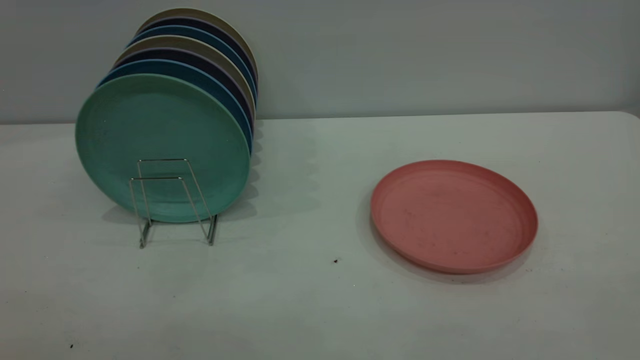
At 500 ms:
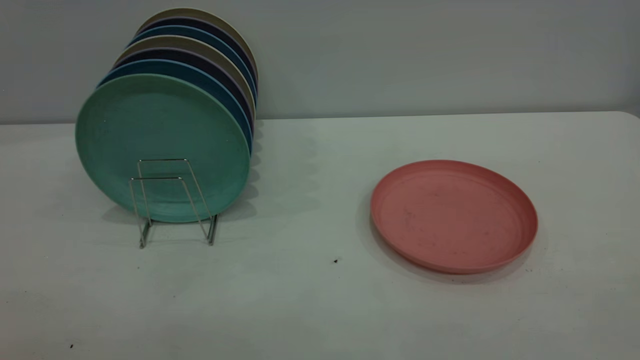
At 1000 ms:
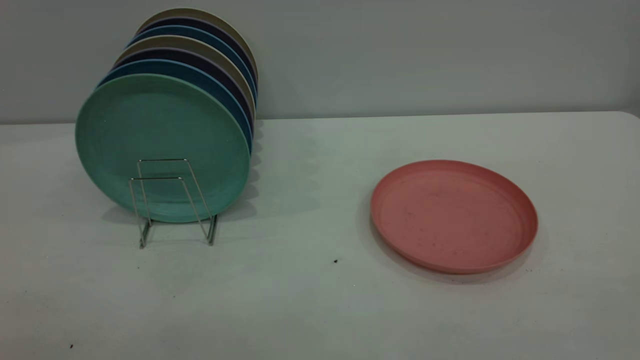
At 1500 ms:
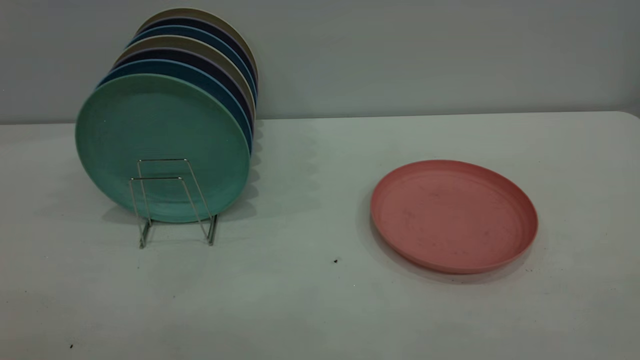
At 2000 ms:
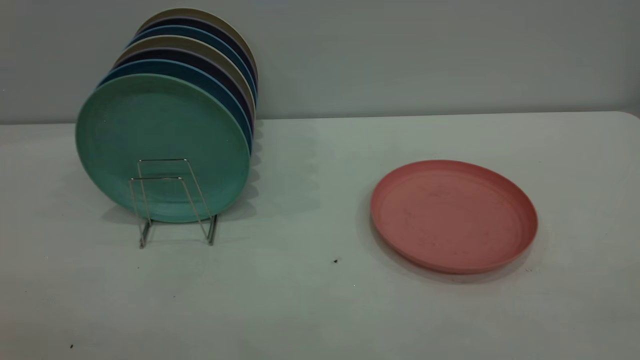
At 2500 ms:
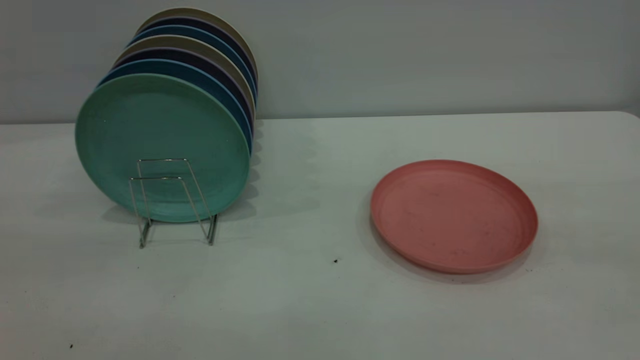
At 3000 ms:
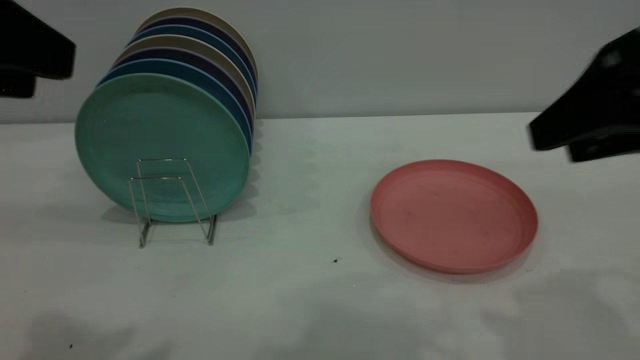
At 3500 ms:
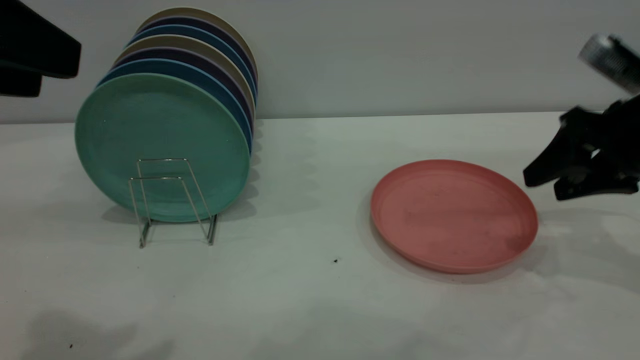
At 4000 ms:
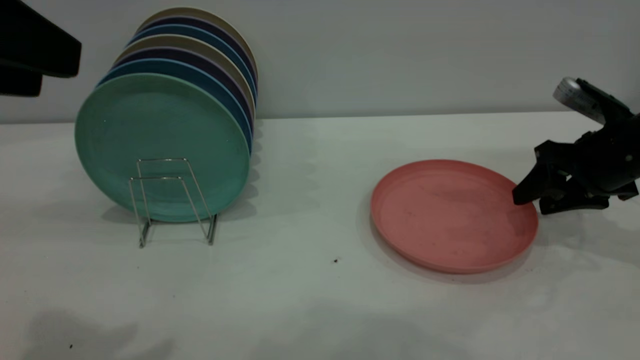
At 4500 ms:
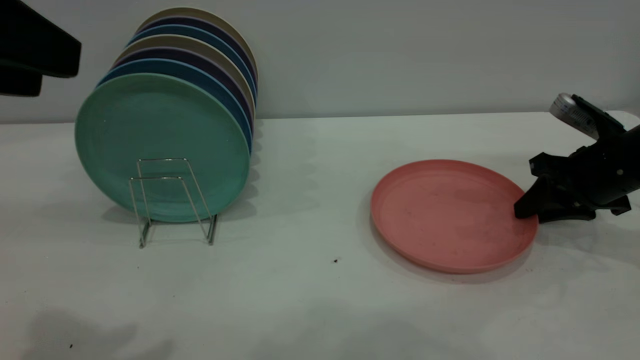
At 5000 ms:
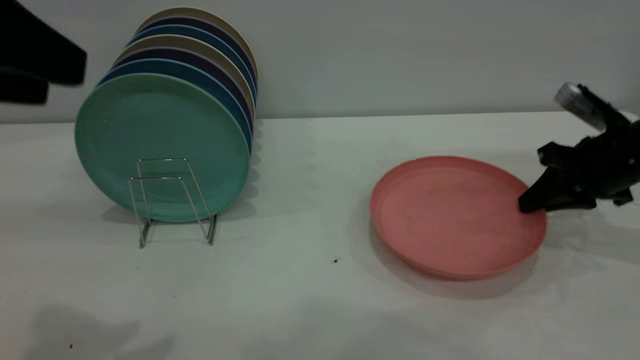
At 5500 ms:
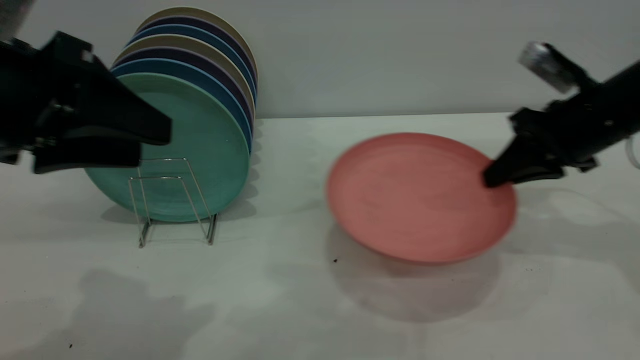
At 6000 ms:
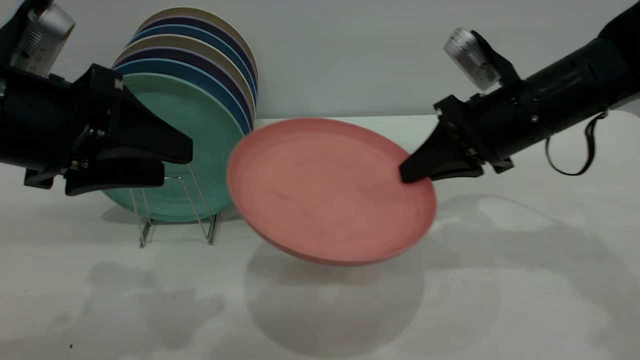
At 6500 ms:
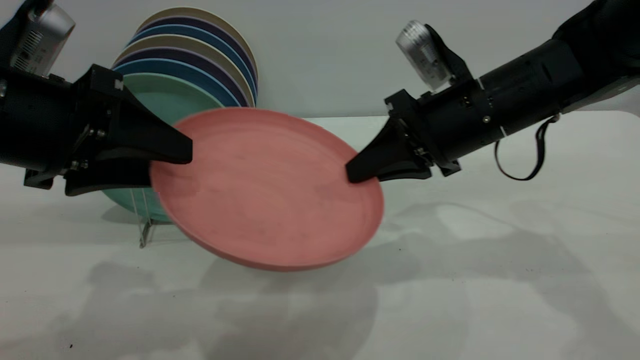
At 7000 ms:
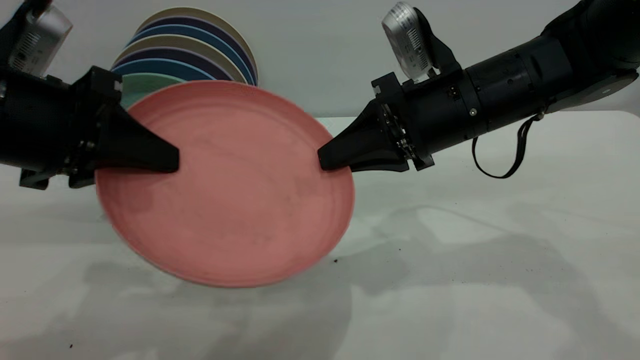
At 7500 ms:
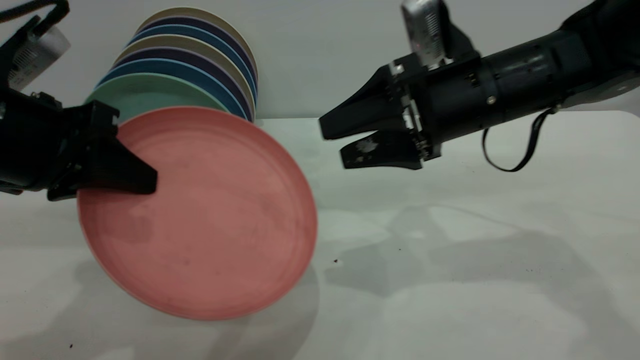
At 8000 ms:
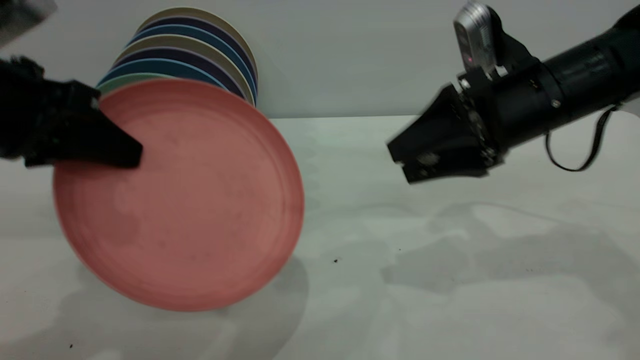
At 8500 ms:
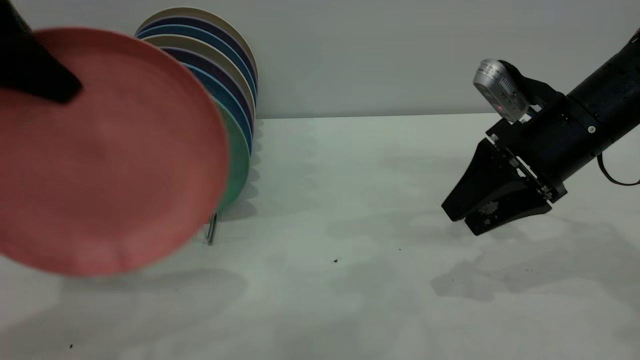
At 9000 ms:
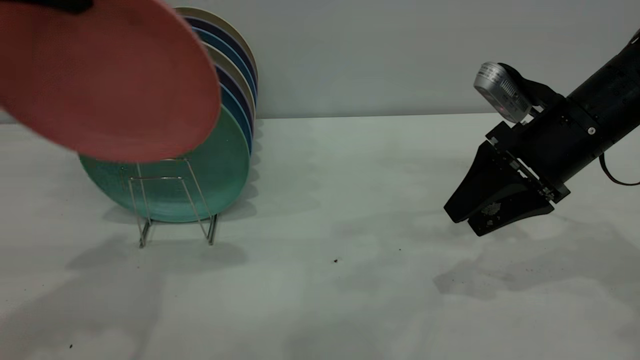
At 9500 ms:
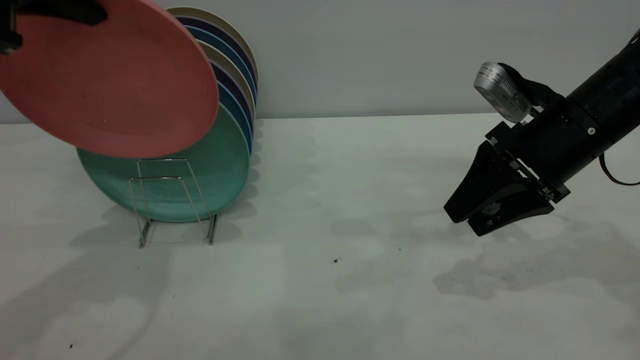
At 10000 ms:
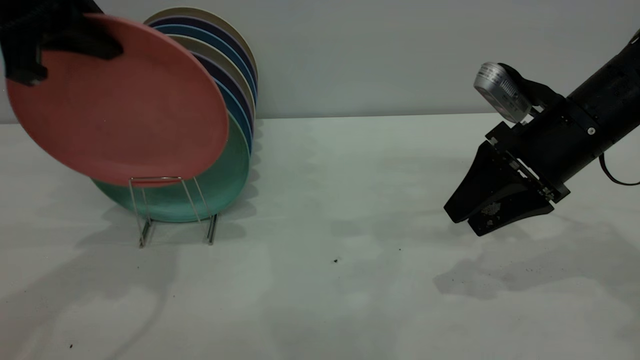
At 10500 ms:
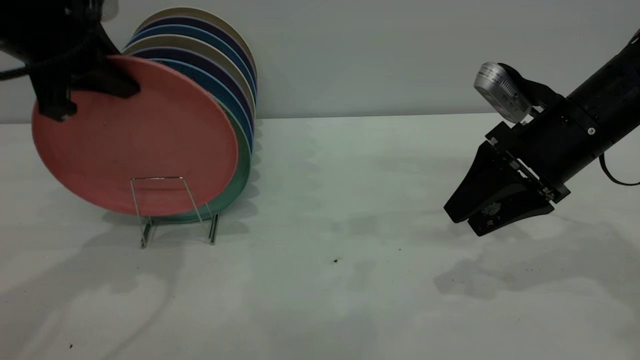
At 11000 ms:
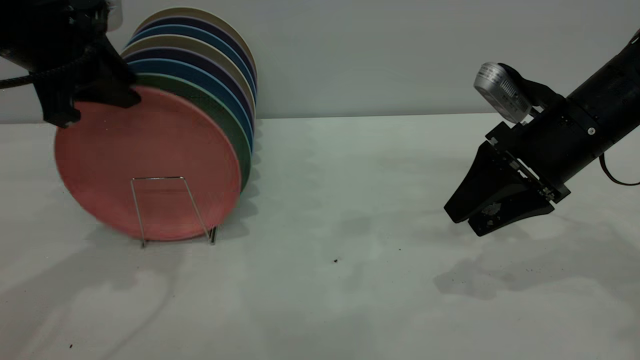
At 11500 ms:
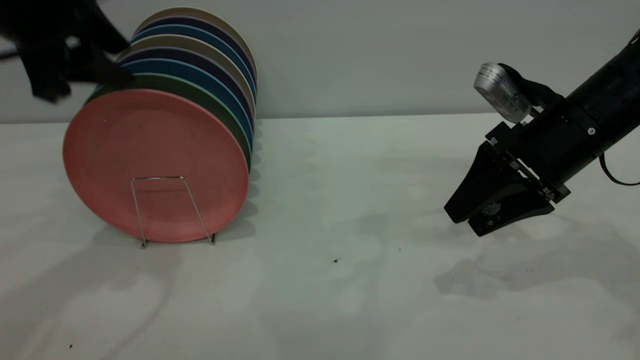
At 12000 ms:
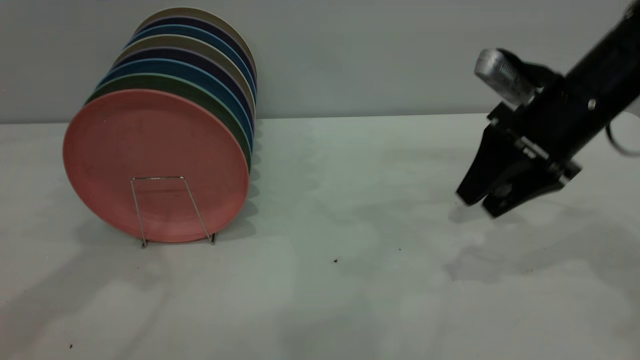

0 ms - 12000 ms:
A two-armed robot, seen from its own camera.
Task of the whole recording: the right gripper grasp the pink plate, the right gripper pass the pink plate to the left gripper, and the left gripper place the pink plate on the plate rack.
Step, 0 ms - 5000 ms: Pick up the plate with the right gripper.
Step, 5500 ms - 7500 ms: Pass the plate from the right gripper to the left gripper.
Step, 8000 ms - 11500 ms: Place the plate on the shelf.
2000 ms - 4000 ms: The right gripper moves forward and downward, some 50 cm, while the left gripper travels forward by some 20 cm.
4000 ms - 6000 ms: The left gripper is displaced downward and forward by about 15 cm. The right gripper travels to the left and upward by about 15 cm, and closes its fingers.
6000 ms - 8000 ms: The right gripper opens; the left gripper closes.
8000 ms - 10000 ms: The left gripper shifts some 10 cm forward and upward.
10000 ms - 12000 ms: The left gripper opens.

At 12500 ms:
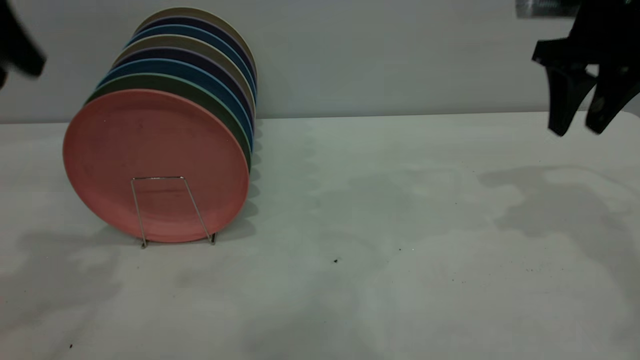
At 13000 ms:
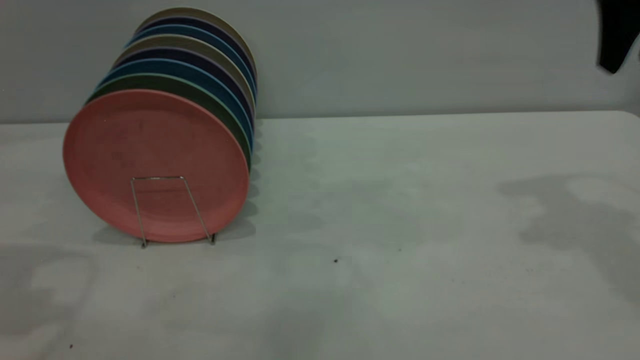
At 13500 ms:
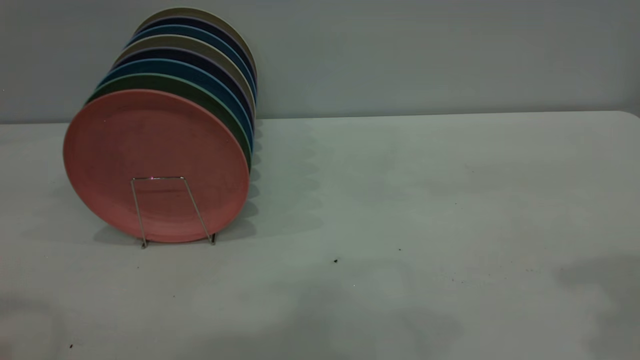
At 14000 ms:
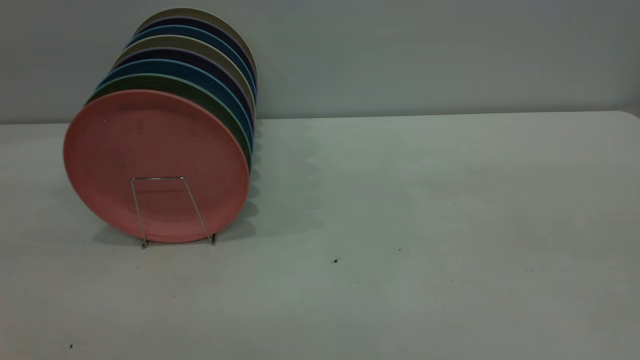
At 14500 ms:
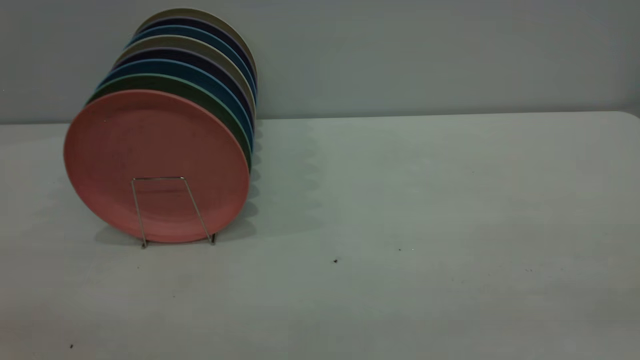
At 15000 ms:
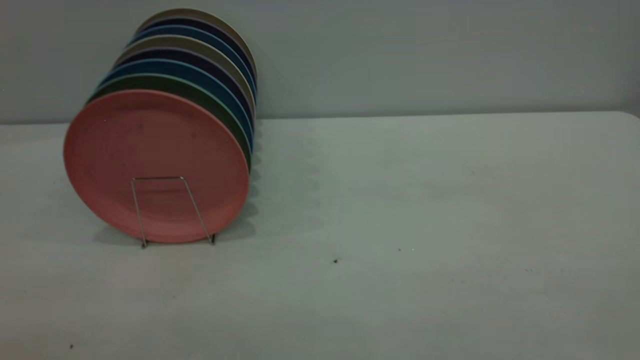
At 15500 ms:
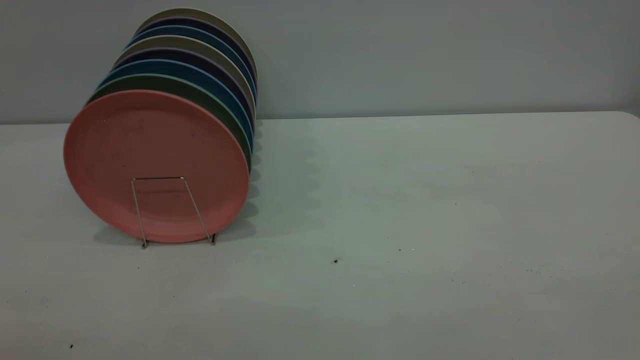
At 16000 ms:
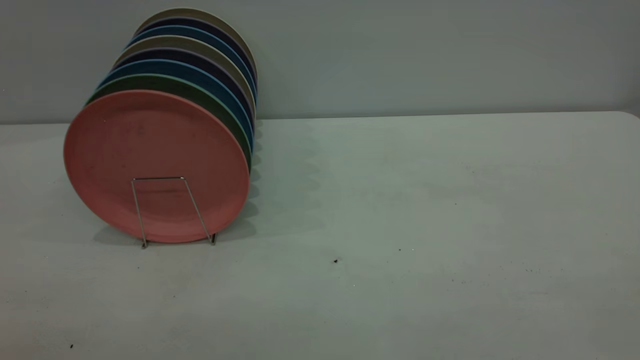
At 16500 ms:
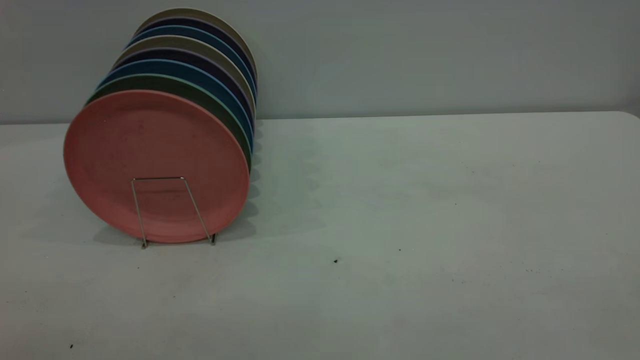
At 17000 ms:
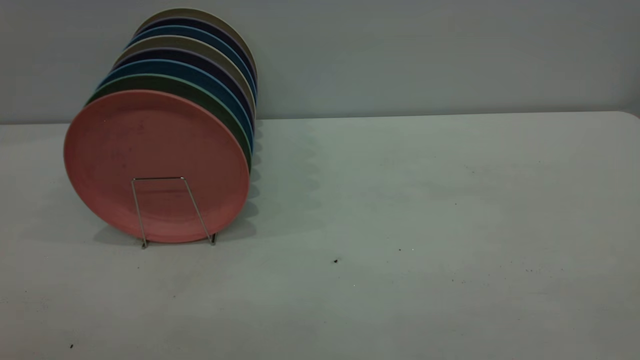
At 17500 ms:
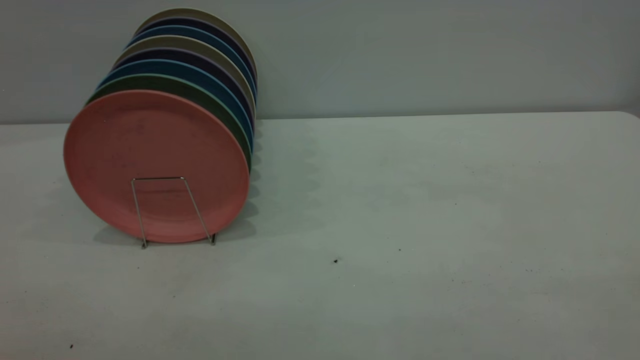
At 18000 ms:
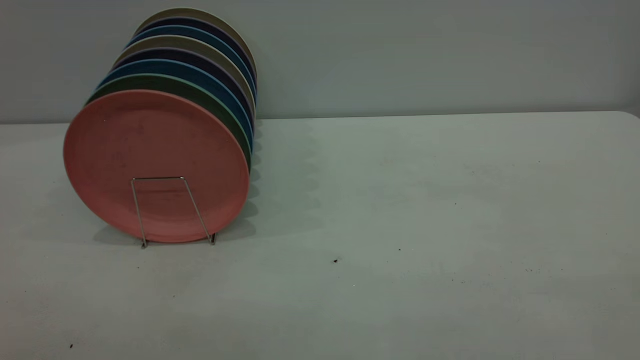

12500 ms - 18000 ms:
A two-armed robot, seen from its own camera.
Task of the whole recording: the right gripper grasp the pink plate, the right gripper pass the pink plate to the left gripper, and the left gripper place the pink plate on the plate rack.
12500 ms - 14500 ms: The two grippers go some 35 cm backward.
